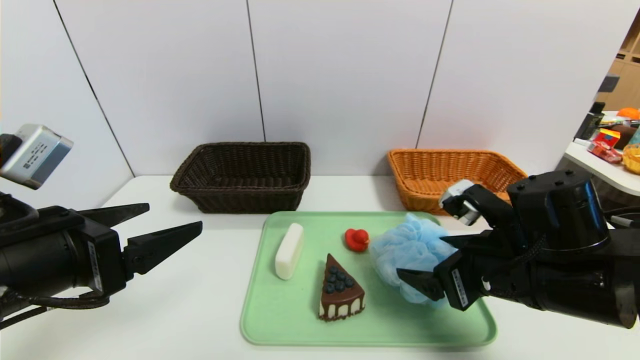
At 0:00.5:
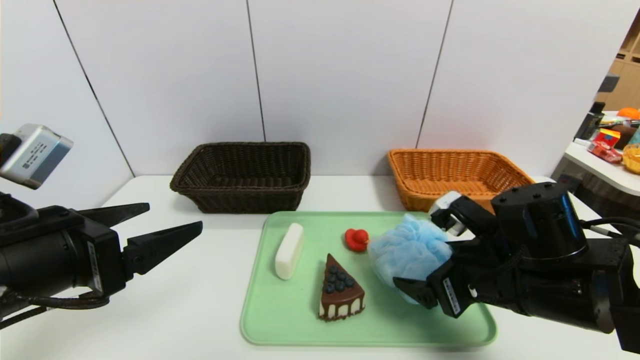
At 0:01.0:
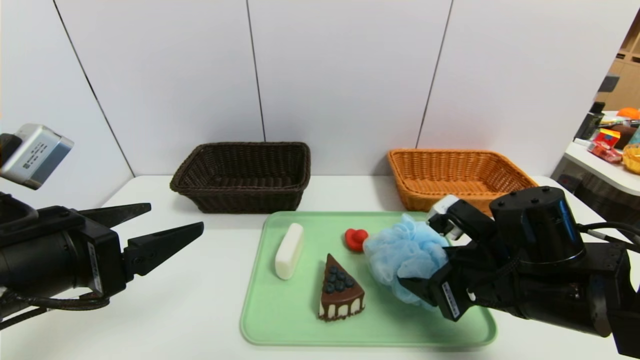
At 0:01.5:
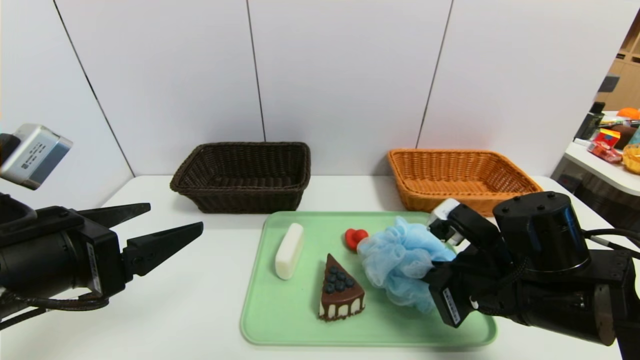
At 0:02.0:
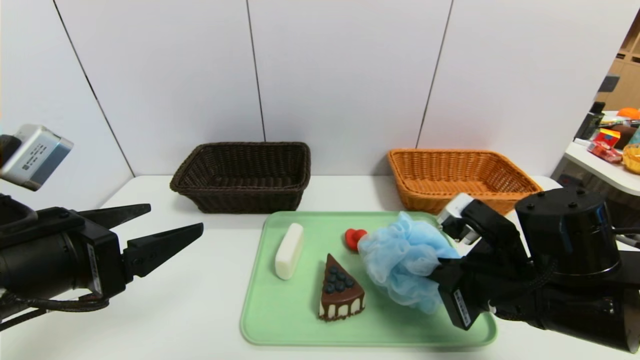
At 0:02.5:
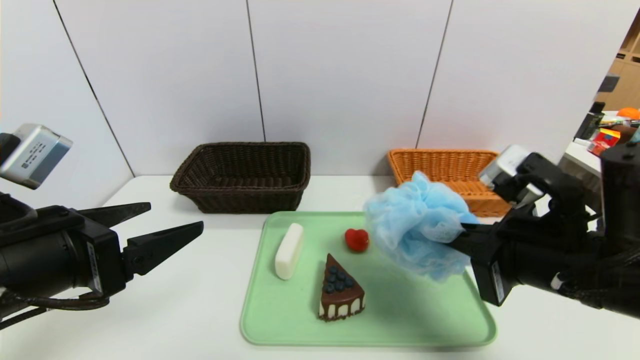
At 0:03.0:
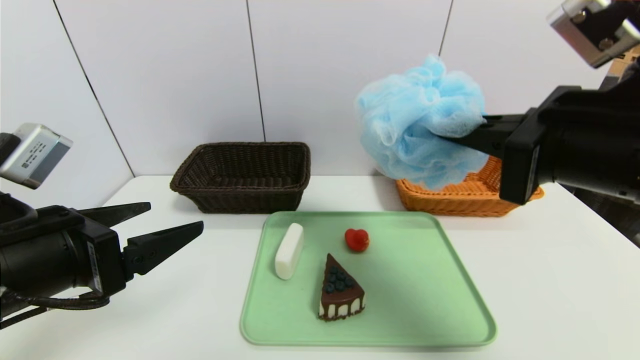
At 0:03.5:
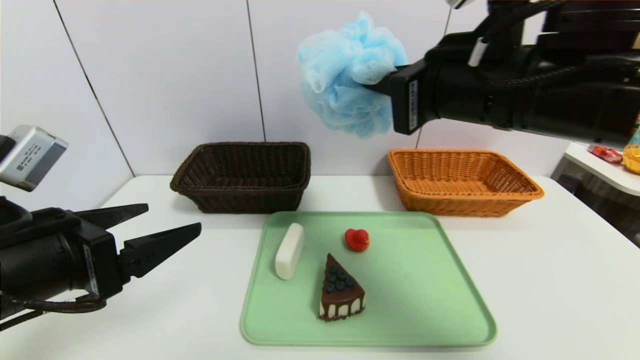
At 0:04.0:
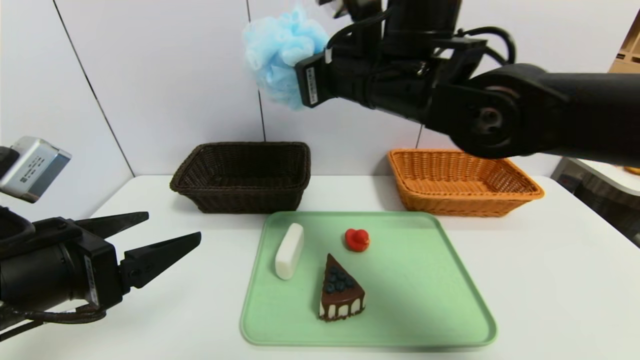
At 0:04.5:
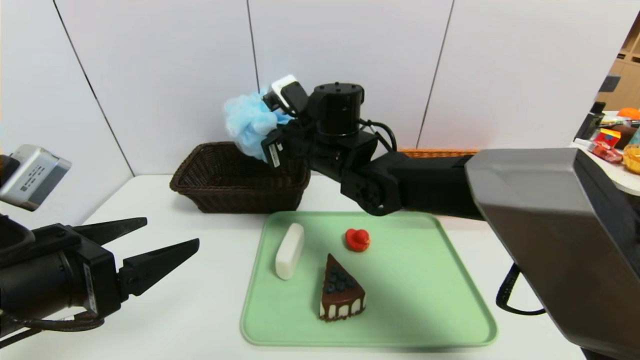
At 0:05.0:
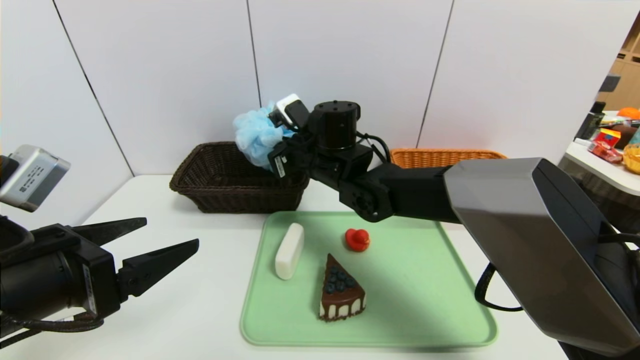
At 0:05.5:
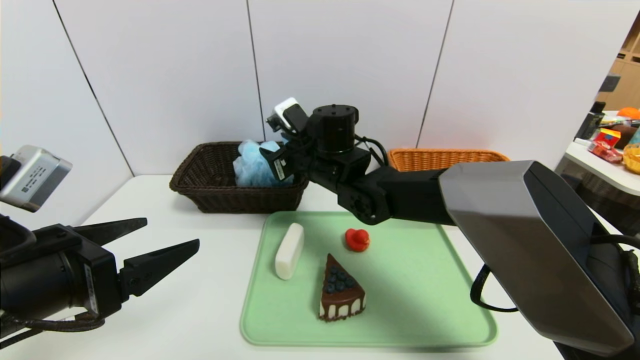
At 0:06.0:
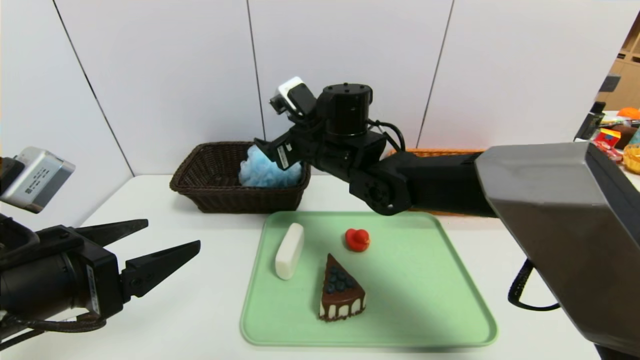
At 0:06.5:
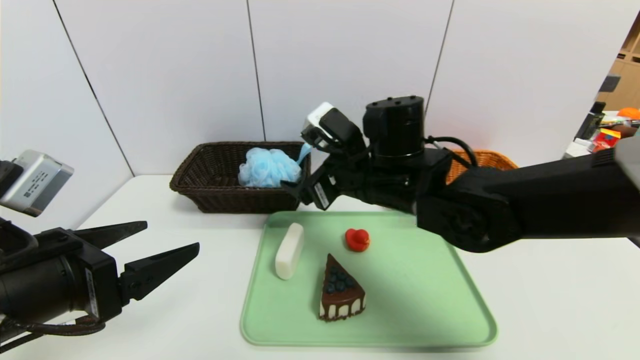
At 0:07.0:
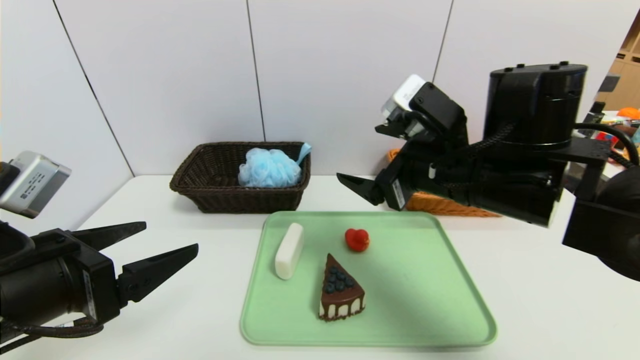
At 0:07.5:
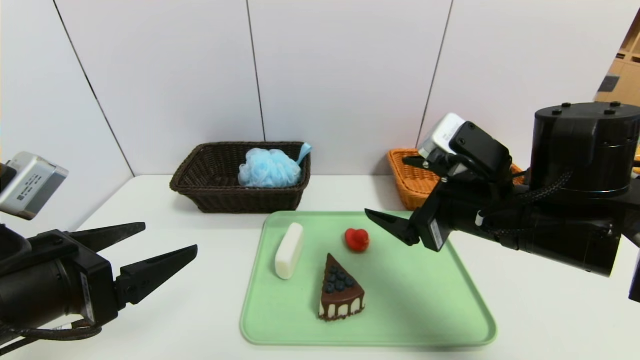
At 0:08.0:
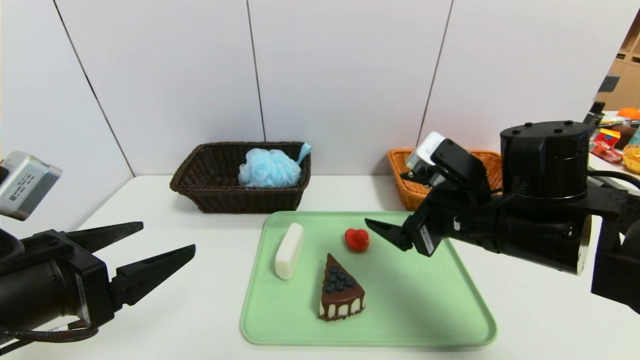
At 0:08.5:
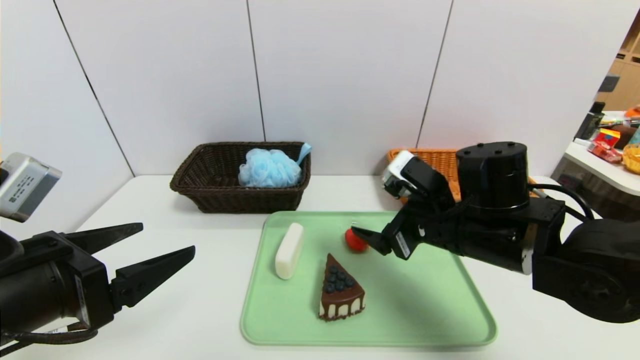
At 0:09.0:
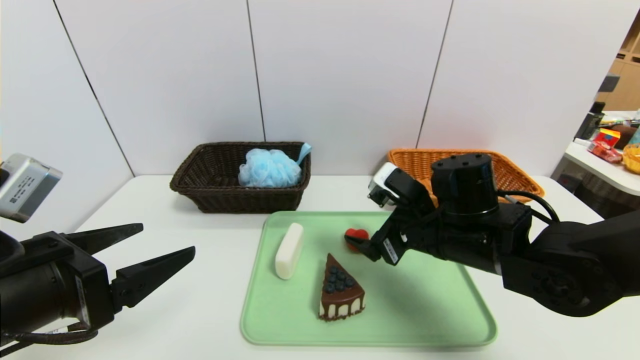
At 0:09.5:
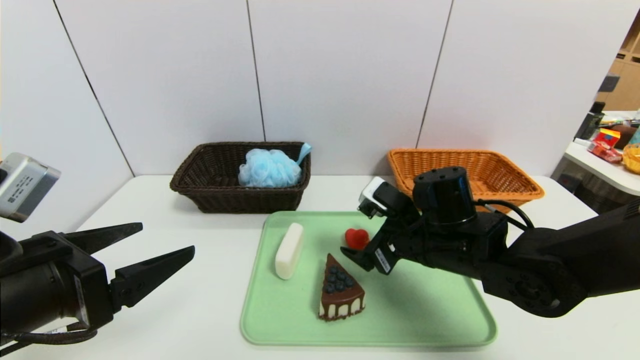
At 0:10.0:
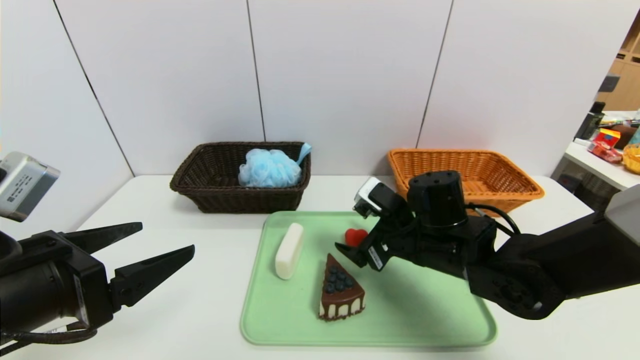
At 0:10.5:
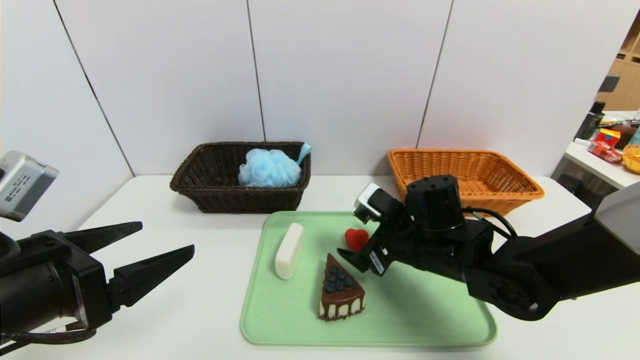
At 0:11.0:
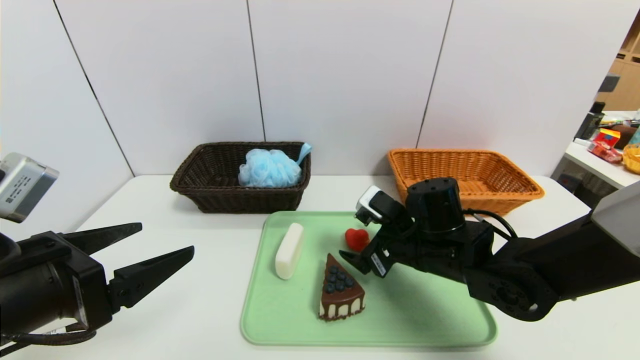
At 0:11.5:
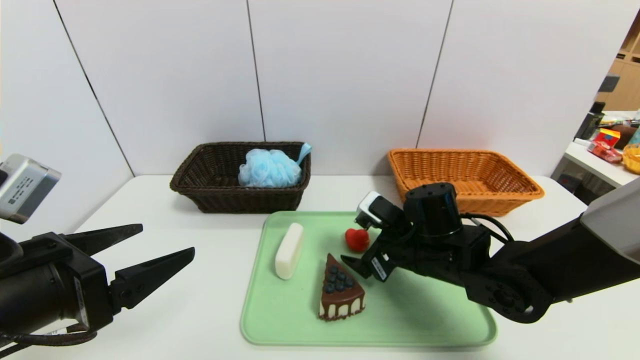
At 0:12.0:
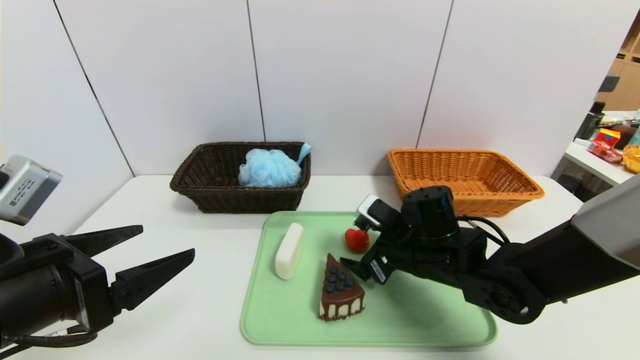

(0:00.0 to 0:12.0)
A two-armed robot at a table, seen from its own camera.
Task of the whole recording: place the food in the right basket with the right gripper, and place the non food items in the left basket with the left gripper.
0:00.0 - 0:02.0: The right gripper closes.
0:02.0 - 0:04.0: The right gripper shifts some 25 cm upward, to the left and forward.
0:04.0 - 0:06.0: The right gripper moves downward, forward and to the left, some 15 cm, and opens up.
0:06.0 - 0:08.0: The right gripper heads to the right and backward, covering approximately 20 cm.
0:08.0 - 0:10.0: The right gripper goes some 10 cm downward and forward.
0:10.0 - 0:12.0: There are only small adjustments of the grippers.

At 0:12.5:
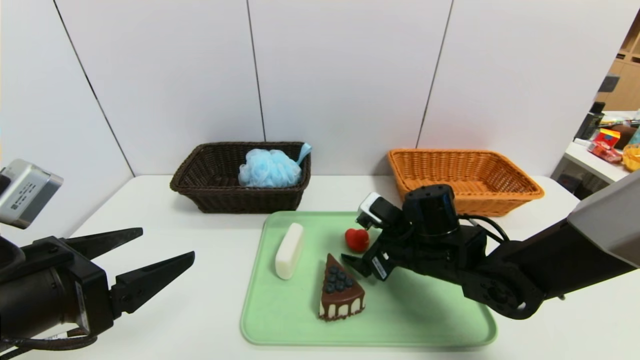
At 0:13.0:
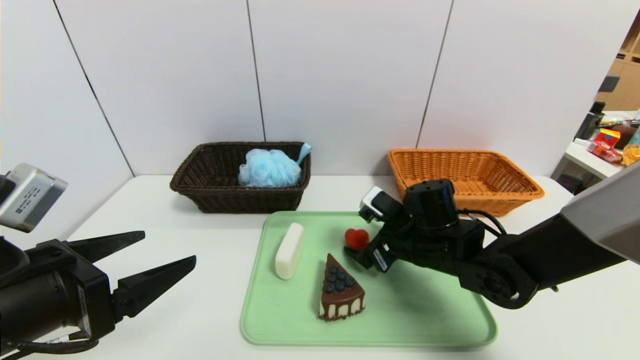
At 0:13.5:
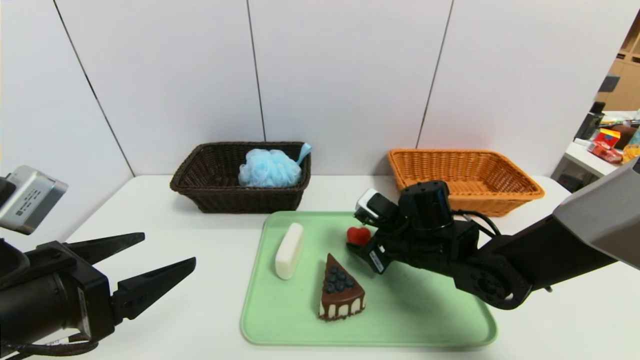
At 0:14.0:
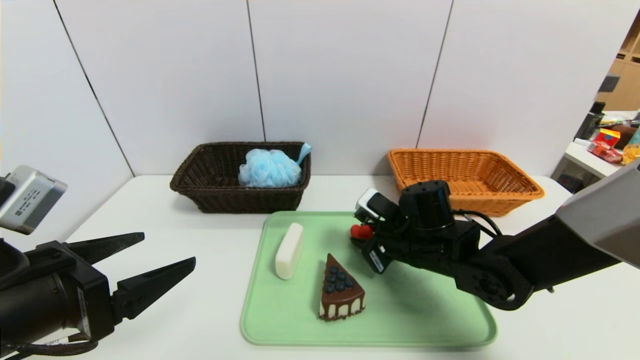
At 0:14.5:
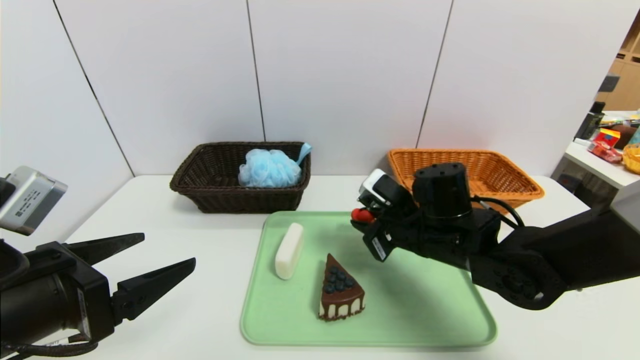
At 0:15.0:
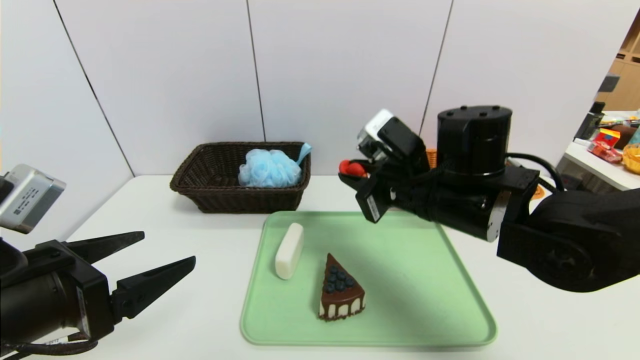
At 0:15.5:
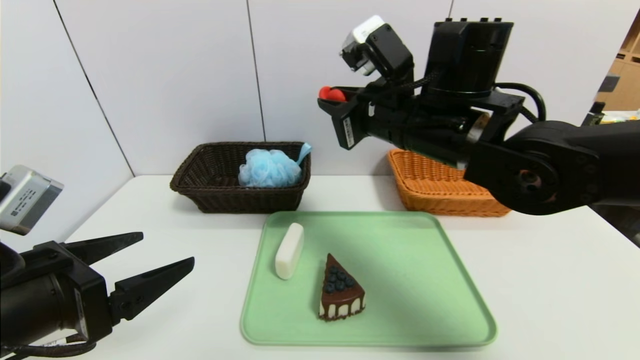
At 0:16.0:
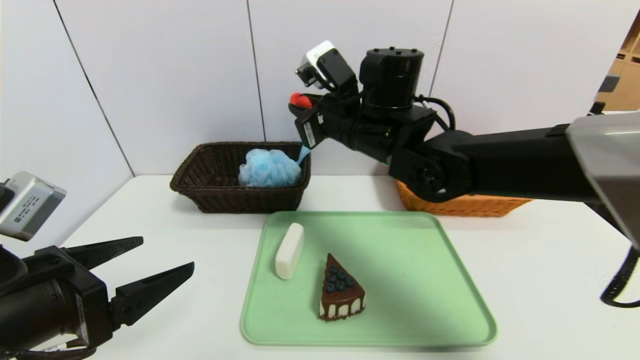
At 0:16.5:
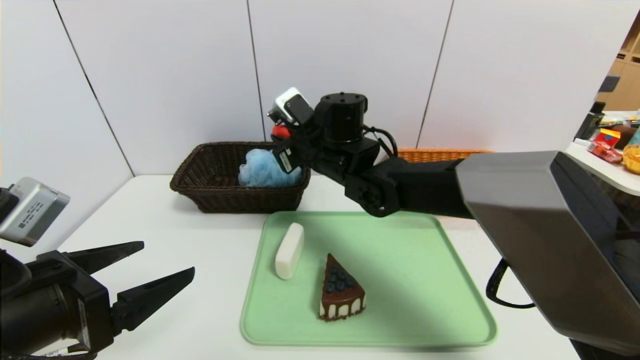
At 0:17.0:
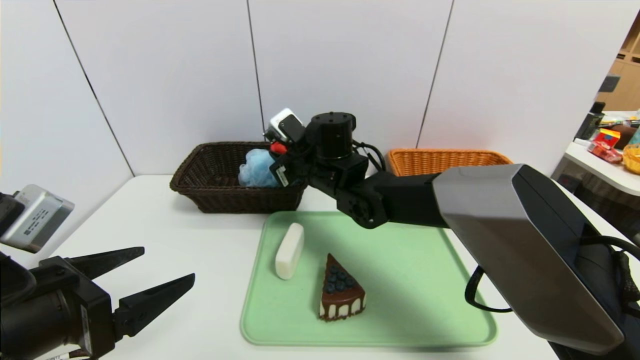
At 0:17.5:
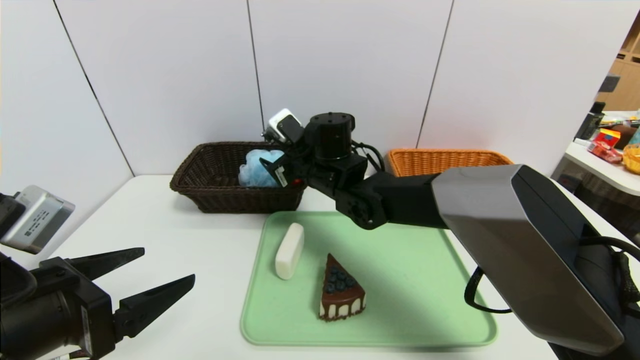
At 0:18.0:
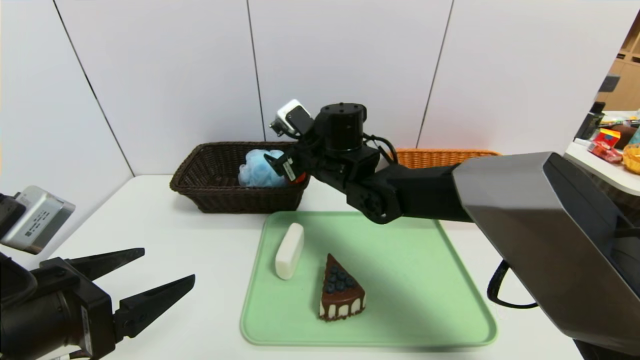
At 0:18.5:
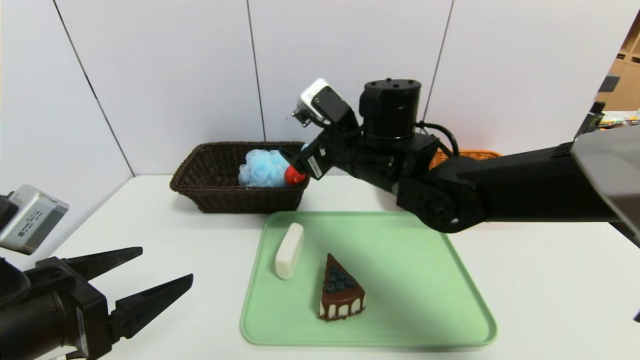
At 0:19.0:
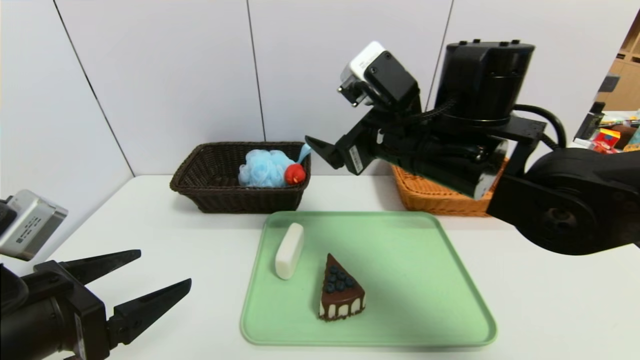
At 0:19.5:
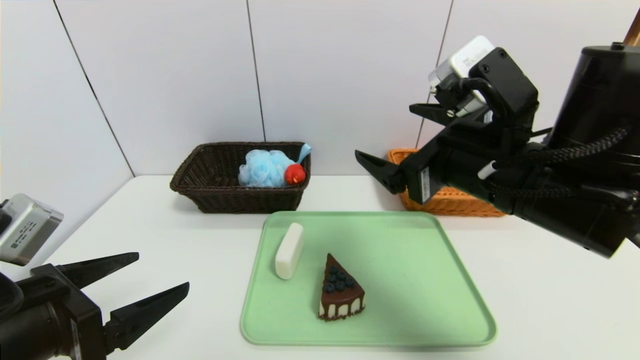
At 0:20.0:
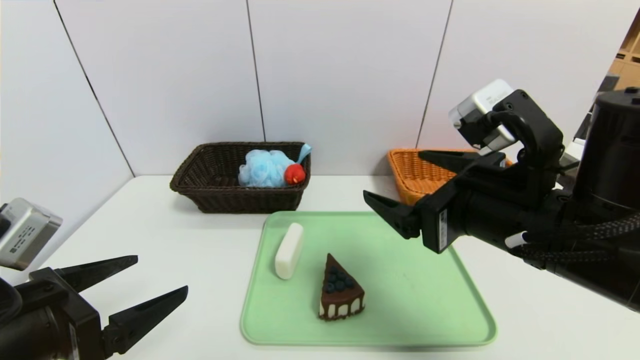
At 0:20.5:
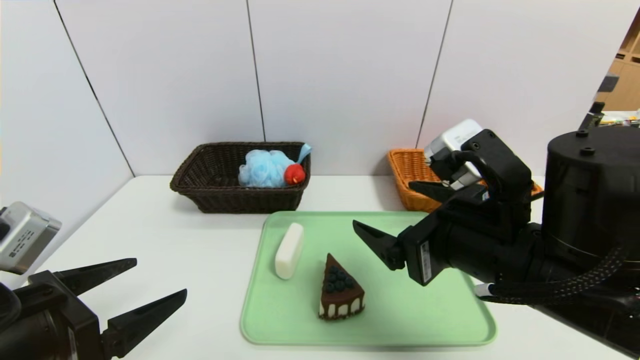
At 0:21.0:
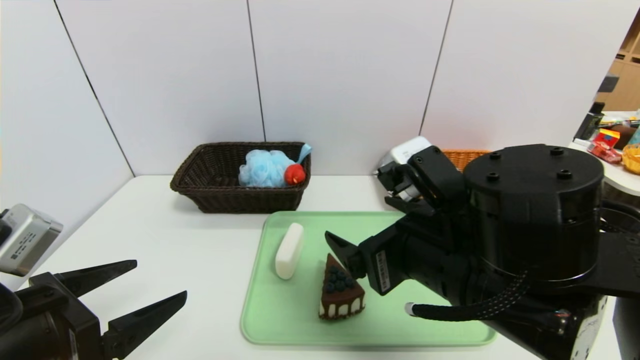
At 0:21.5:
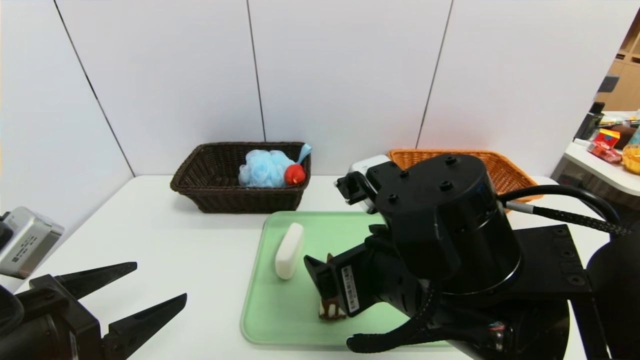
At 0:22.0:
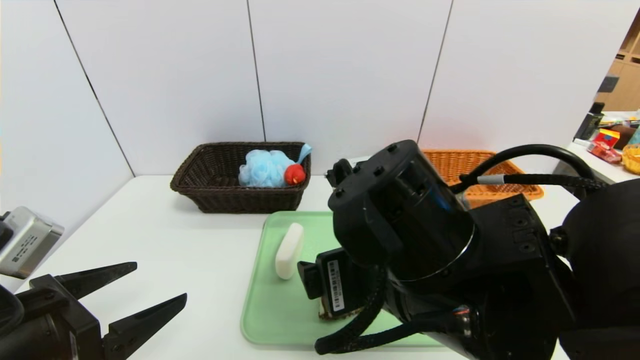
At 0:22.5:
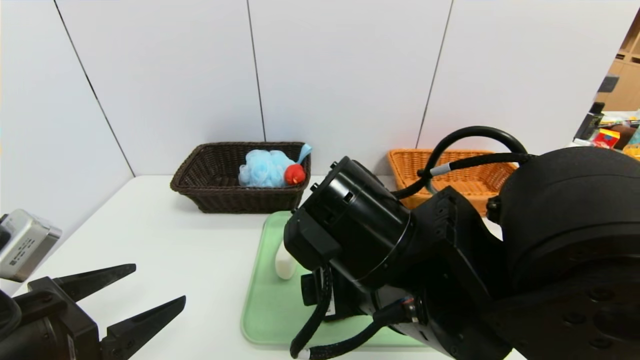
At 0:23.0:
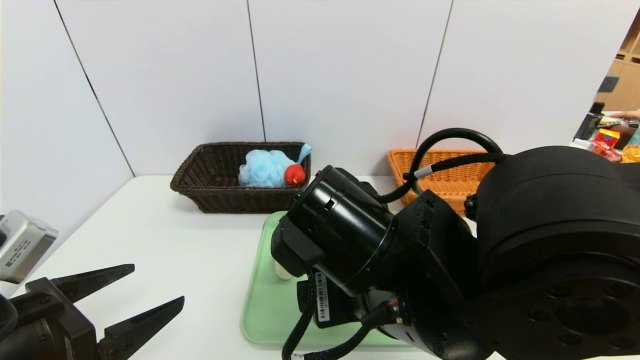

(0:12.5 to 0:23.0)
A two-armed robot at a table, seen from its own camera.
Task of the whole recording: place the food in the right basket with the right gripper, and place the non food items in the left basket with the left gripper.
0:12.5 - 0:14.5: The right gripper closes.
0:14.5 - 0:16.5: The right gripper goes roughly 20 cm to the left, forward and upward.
0:16.5 - 0:19.0: The right gripper is displaced backward, to the right and upward by about 15 cm, and opens.
0:19.0 - 0:21.0: The right gripper shifts approximately 10 cm backward and downward.
0:21.0 - 0:23.0: The right gripper moves to the left, about 5 cm.
